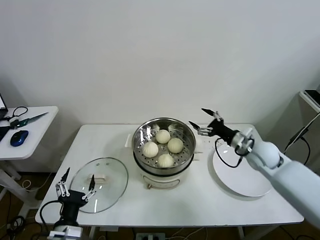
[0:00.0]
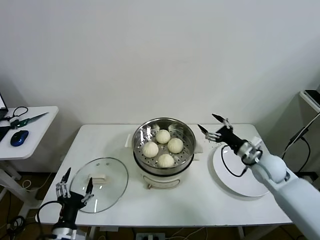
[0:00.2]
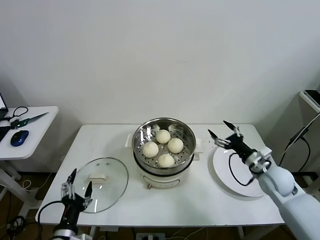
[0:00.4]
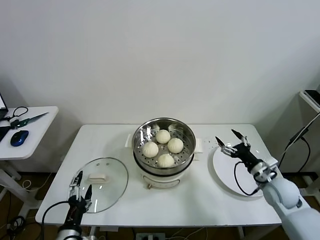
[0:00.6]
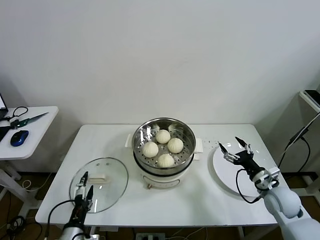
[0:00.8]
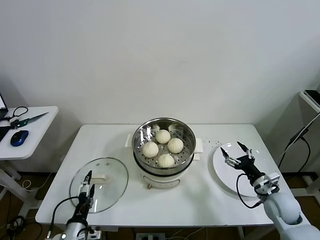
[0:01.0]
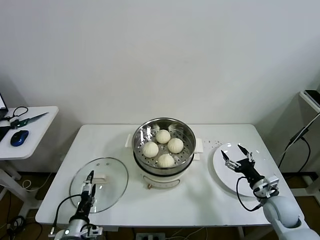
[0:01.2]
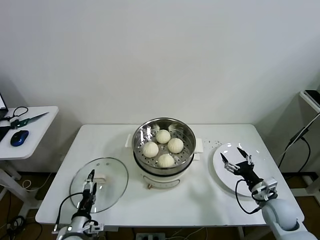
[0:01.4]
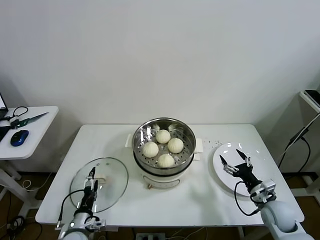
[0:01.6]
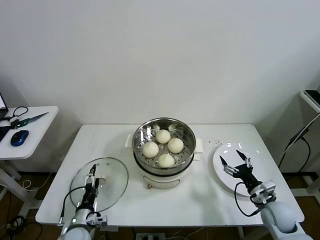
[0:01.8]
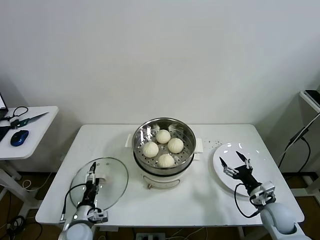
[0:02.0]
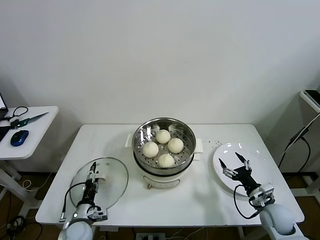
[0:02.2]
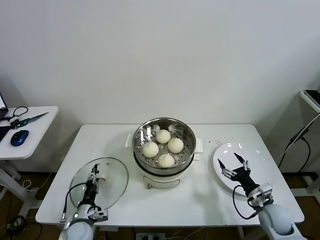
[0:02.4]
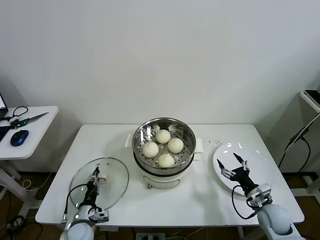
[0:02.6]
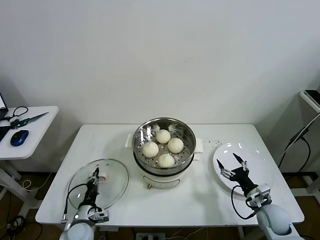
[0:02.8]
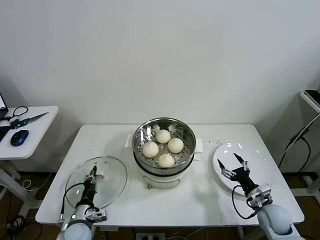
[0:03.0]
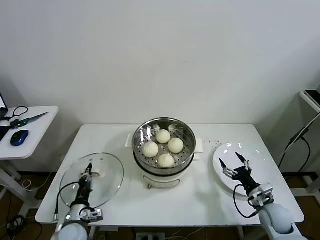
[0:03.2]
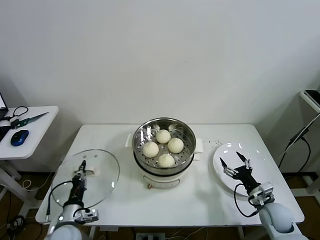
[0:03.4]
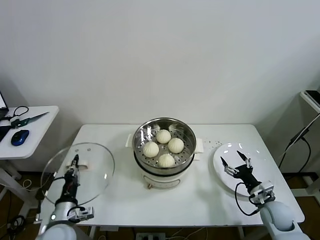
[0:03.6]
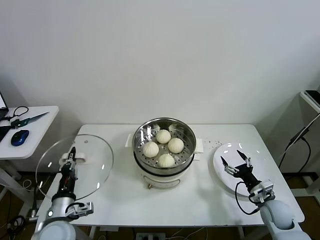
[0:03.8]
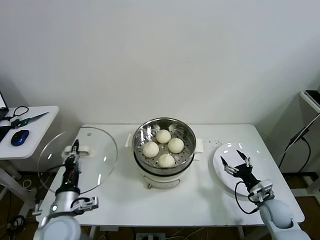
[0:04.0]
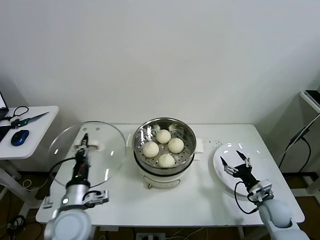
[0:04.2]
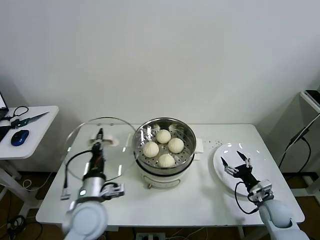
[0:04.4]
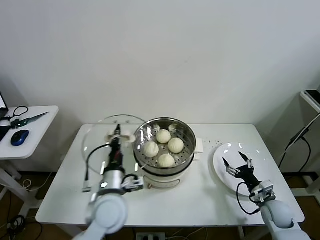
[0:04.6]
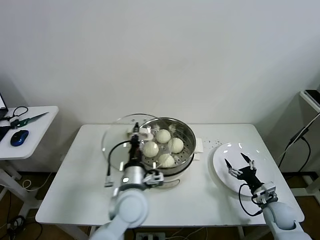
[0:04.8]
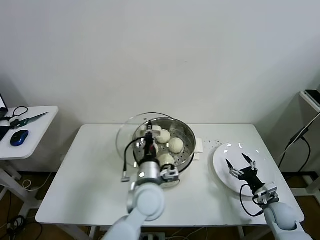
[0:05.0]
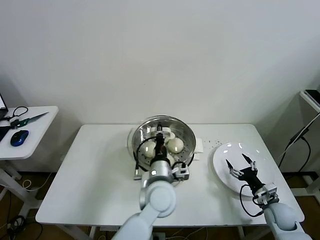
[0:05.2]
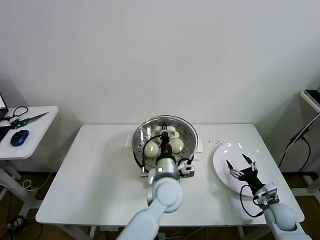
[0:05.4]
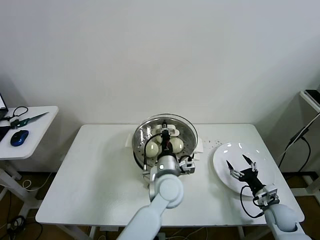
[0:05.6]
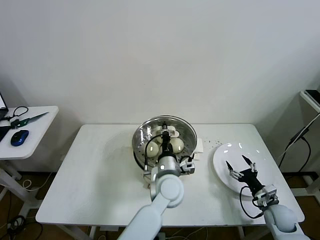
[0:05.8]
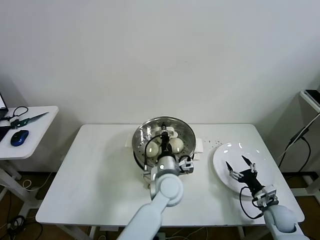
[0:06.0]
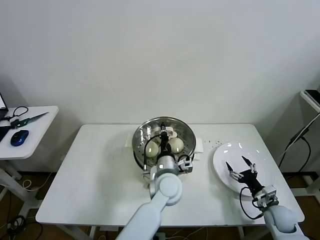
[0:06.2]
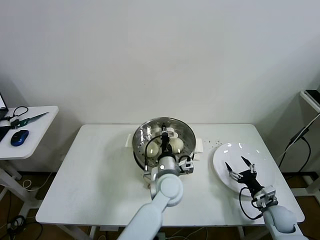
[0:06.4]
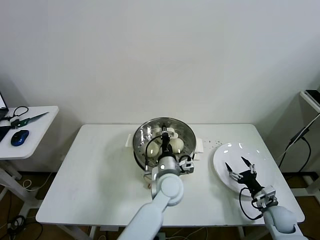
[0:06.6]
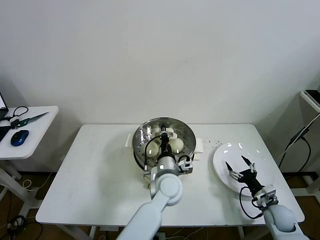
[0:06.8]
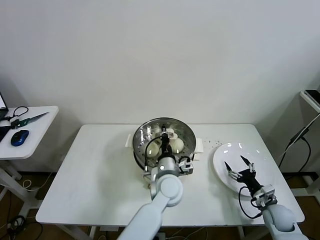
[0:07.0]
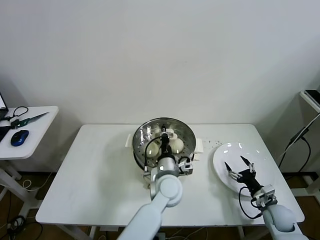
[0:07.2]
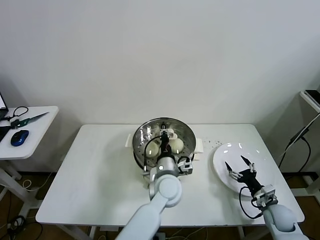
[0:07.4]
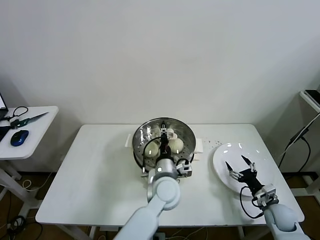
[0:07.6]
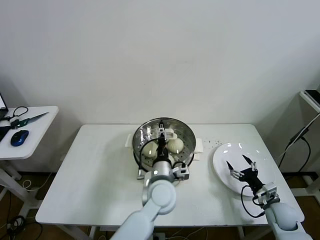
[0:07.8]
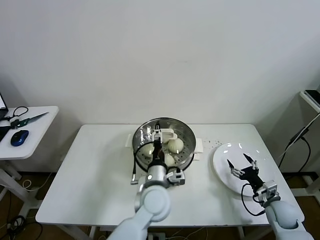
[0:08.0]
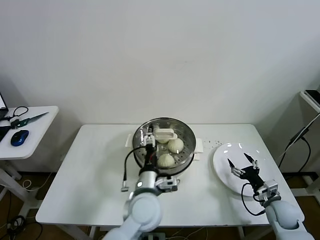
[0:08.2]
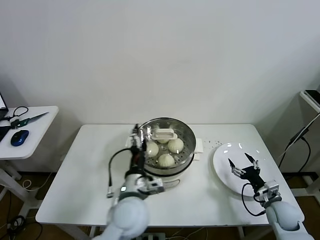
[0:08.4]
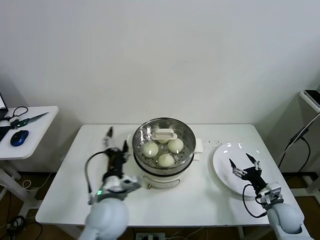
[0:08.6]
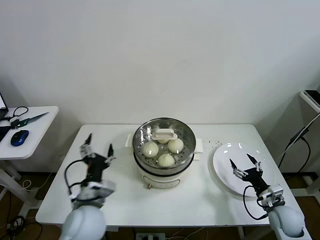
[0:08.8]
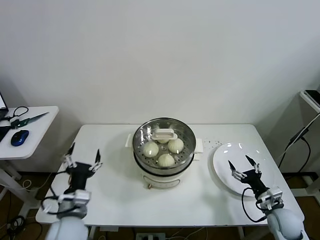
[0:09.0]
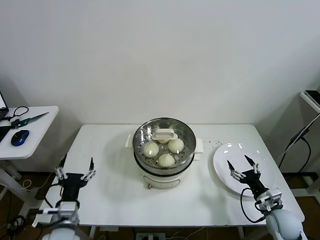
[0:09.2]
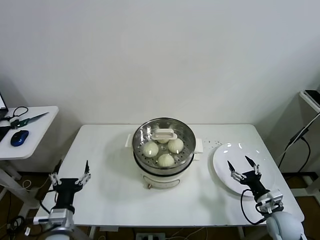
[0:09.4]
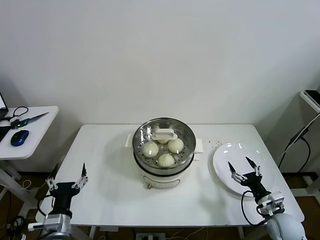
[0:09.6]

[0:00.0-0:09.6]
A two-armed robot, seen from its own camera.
Task of the whole recording: take steamed baozi put them in steamer then cover it.
Step, 0:00.0 to 0:02.6: Grasp the pot lid with left gripper.
Step, 0:02.8 to 0:07.6: Place the pot lid on the steamer with left gripper.
0:00.0 to 0:01.6: The right gripper is displaced backward and downward by roughly 20 cm. Meanwhile the left gripper heads downward and forward, covering approximately 15 cm.
0:01.6 to 0:03.2: The left gripper closes up.
0:03.2 to 0:04.8: The left gripper goes approximately 25 cm to the right and upward.
0:04.8 to 0:06.4: The left gripper shifts about 15 cm to the right and forward.
0:06.4 to 0:08.0: The left gripper shifts by about 5 cm, and opens.
0:08.0 to 0:09.6: The left gripper heads to the left and backward, covering approximately 30 cm. The right gripper shifts by about 5 cm.
